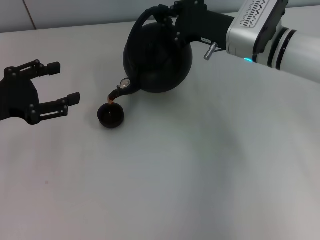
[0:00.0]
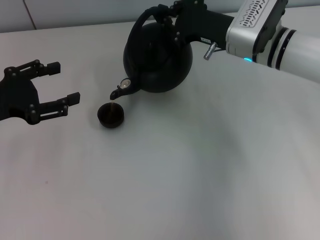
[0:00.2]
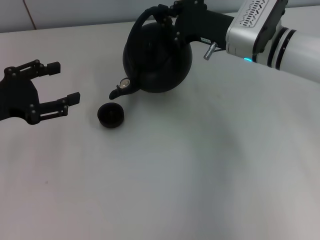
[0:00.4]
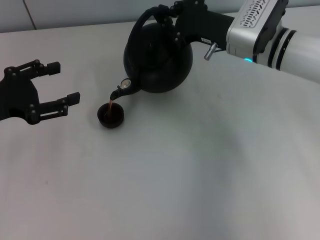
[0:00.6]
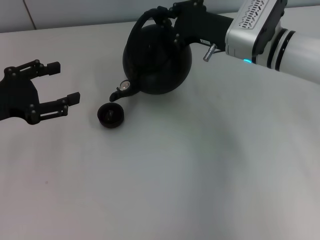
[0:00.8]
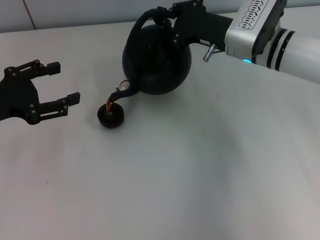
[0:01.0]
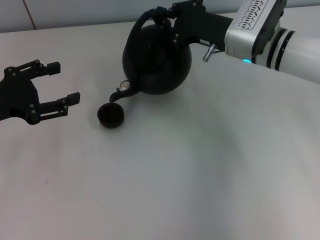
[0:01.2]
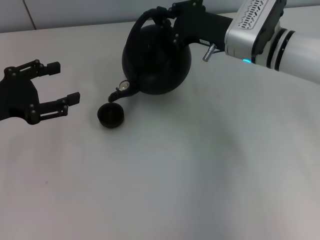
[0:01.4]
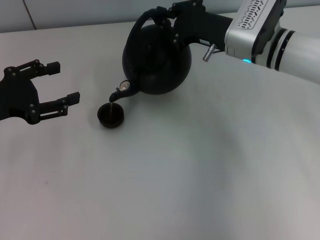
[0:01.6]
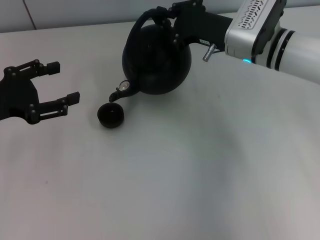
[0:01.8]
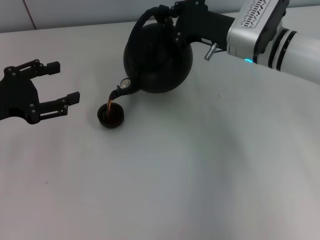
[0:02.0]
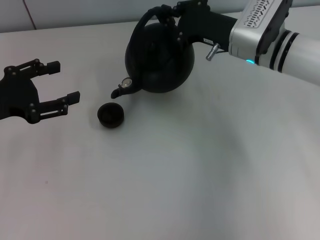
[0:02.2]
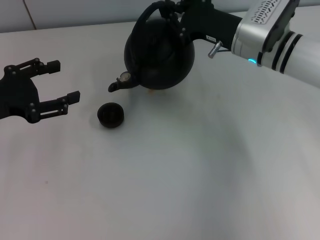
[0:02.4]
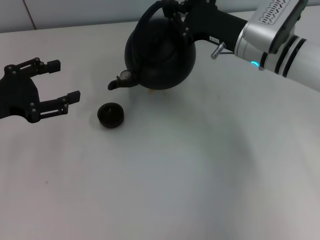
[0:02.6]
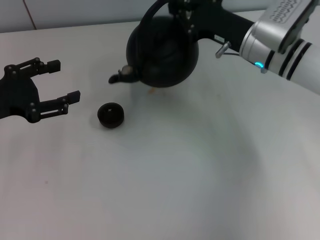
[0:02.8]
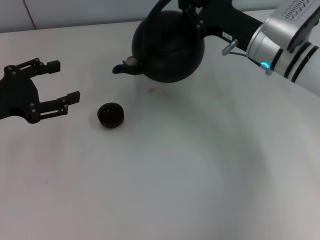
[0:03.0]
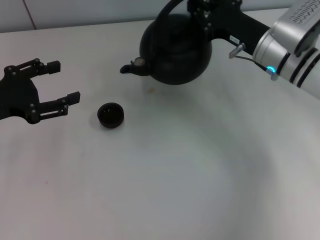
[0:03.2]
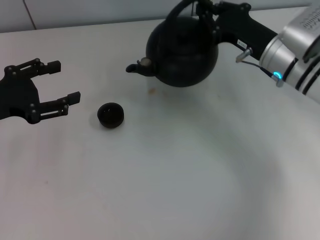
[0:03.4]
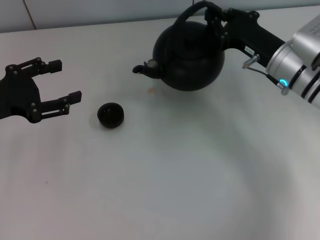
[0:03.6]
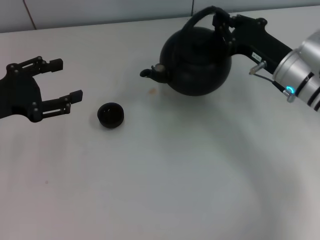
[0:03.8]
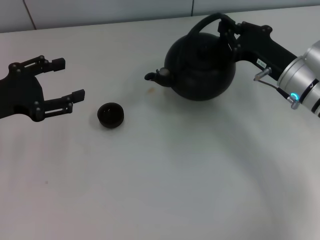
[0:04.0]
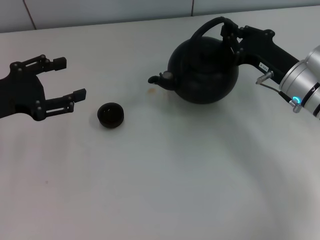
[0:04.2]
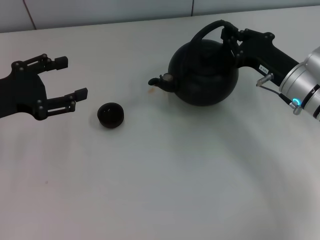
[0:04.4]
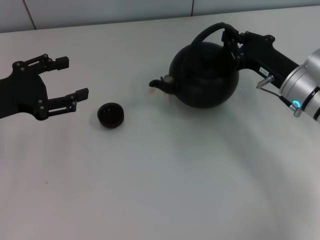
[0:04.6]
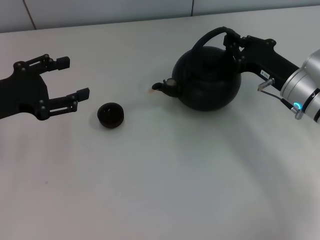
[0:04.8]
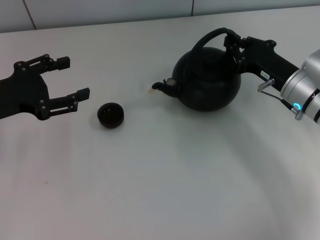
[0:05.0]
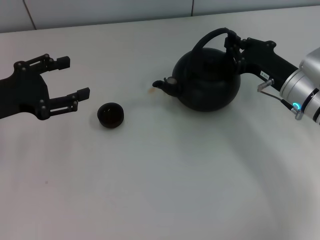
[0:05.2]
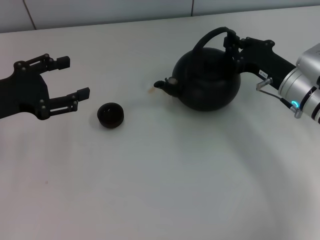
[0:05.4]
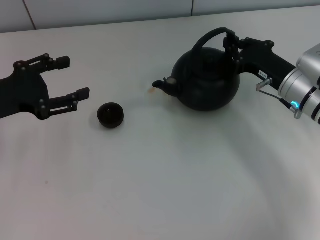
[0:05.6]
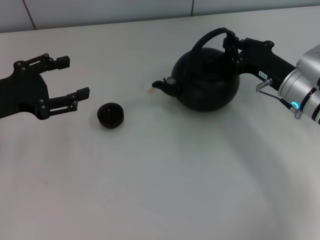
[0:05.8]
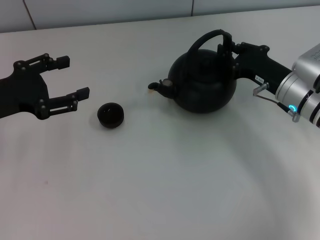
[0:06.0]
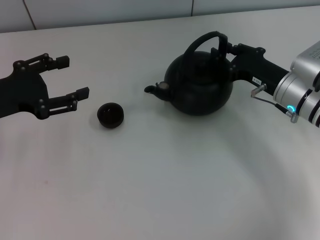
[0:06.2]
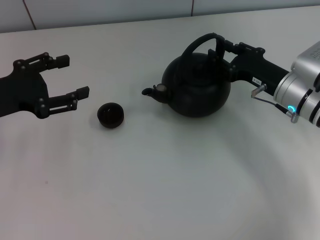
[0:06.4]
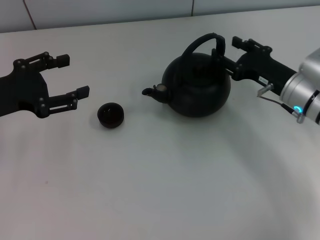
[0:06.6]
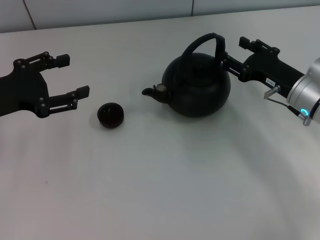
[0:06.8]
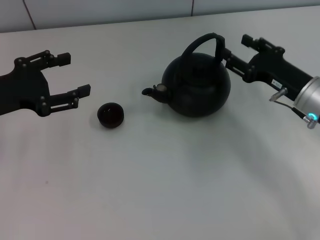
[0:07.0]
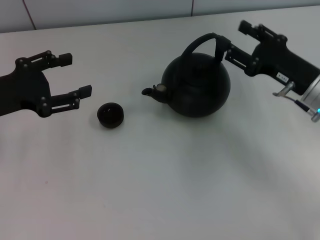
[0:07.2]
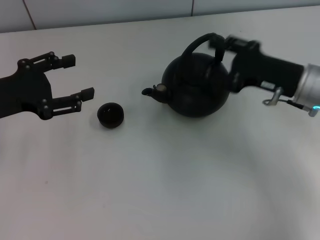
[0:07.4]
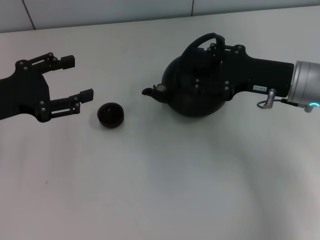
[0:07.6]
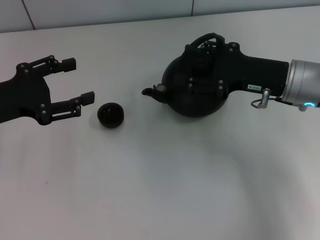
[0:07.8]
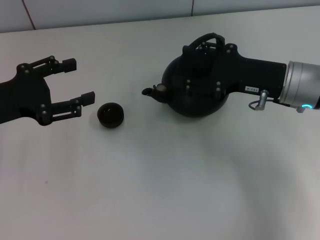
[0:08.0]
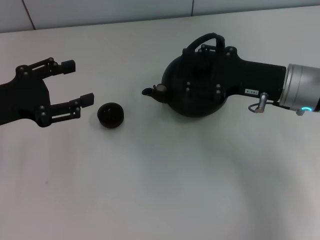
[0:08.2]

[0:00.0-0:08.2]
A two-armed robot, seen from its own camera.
Task of the whole recording: Grasp the handle of the teapot with one hand and pour tea into the teacup.
Step, 2.4 to 6.8 s: Put down the teapot with the right gripper.
0.0 to 1.6 s: Both grippers stay about where they are.
3.2 to 5.0 s: The right gripper shifts by some 10 cm.
5.0 to 6.6 s: The right gripper opens its fingers.
6.6 to 8.2 s: The right gripper moves upward, about 5 cm.

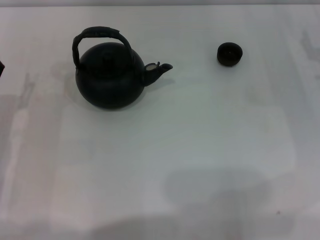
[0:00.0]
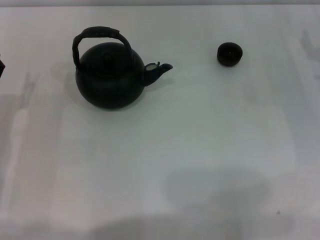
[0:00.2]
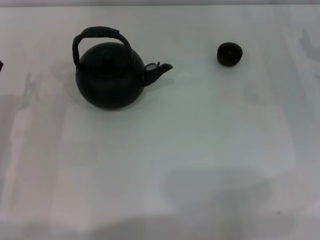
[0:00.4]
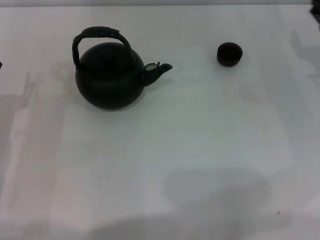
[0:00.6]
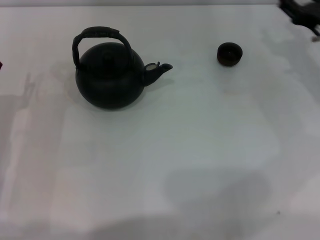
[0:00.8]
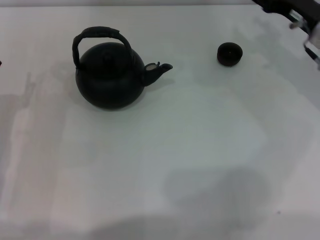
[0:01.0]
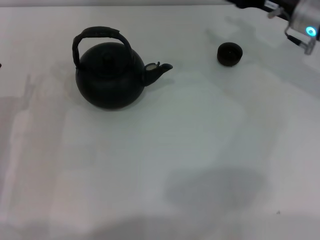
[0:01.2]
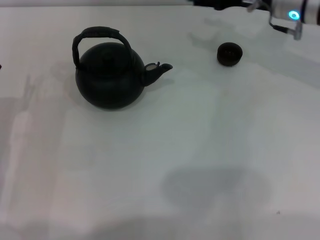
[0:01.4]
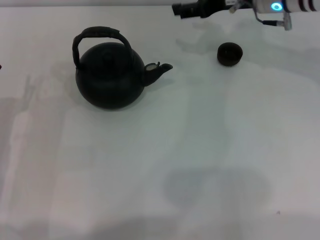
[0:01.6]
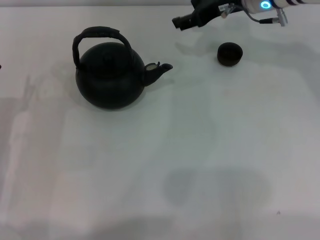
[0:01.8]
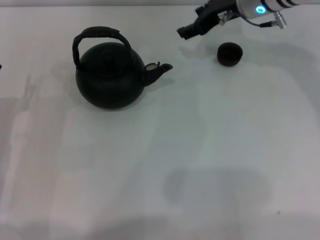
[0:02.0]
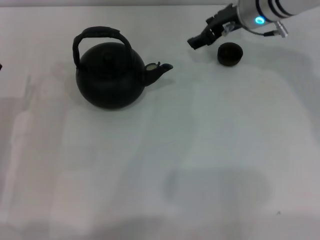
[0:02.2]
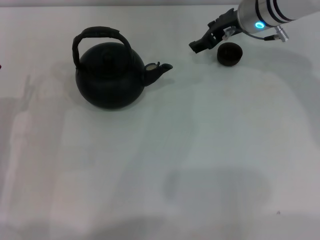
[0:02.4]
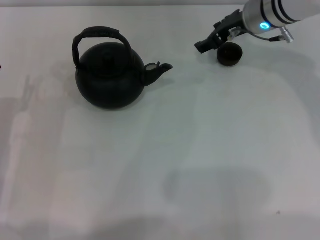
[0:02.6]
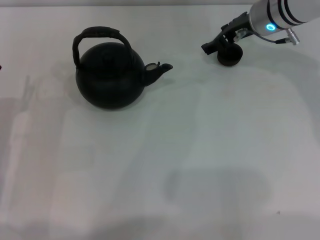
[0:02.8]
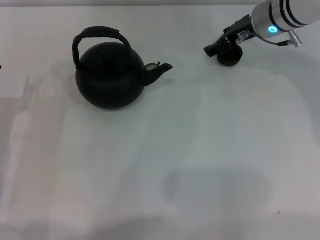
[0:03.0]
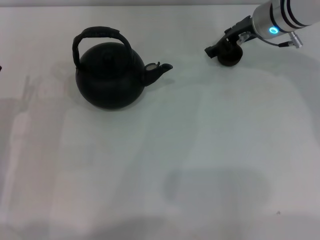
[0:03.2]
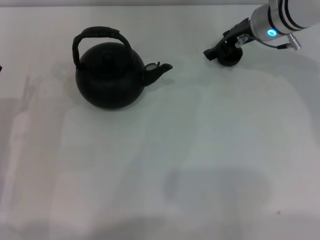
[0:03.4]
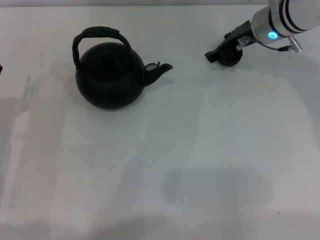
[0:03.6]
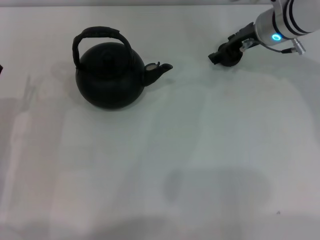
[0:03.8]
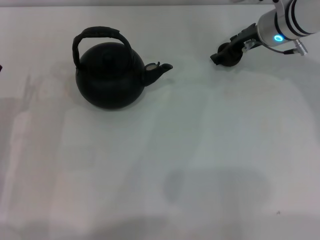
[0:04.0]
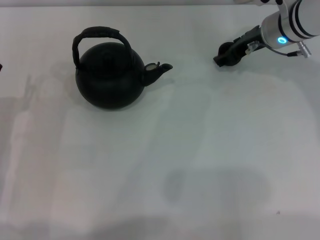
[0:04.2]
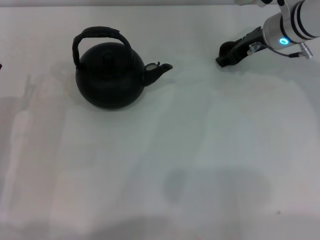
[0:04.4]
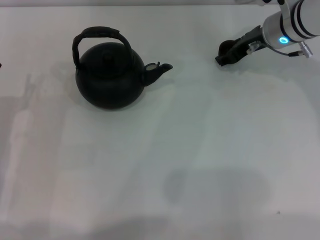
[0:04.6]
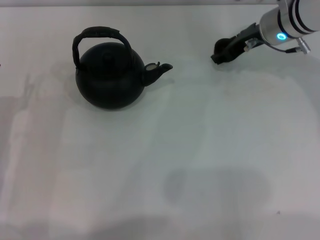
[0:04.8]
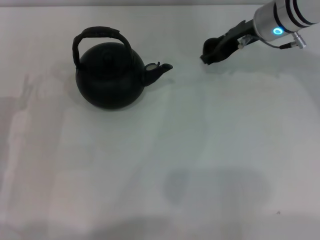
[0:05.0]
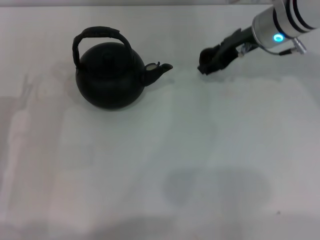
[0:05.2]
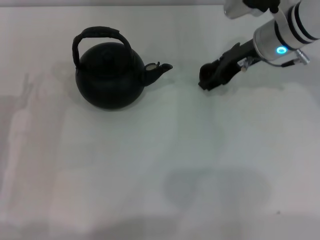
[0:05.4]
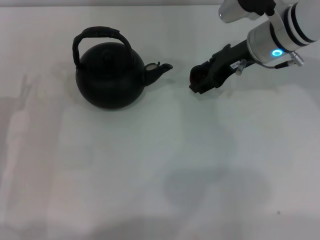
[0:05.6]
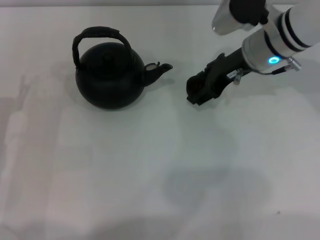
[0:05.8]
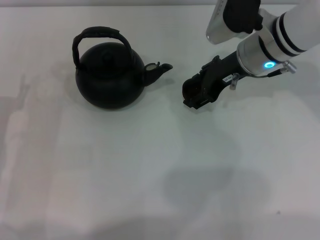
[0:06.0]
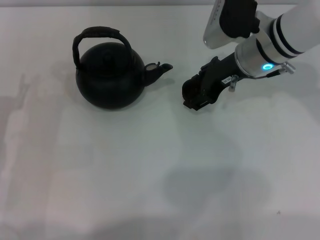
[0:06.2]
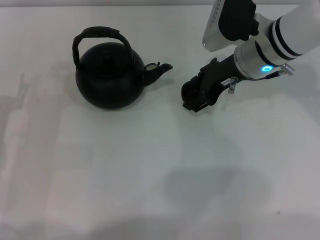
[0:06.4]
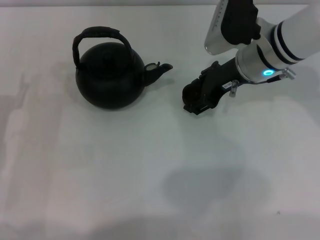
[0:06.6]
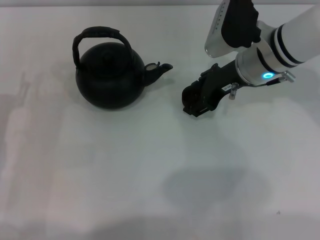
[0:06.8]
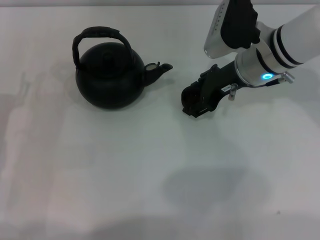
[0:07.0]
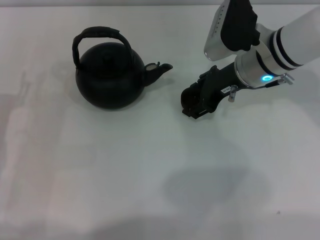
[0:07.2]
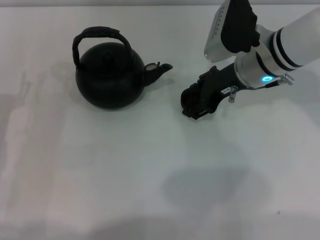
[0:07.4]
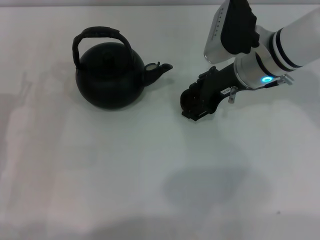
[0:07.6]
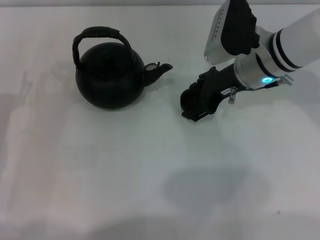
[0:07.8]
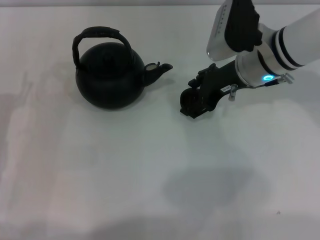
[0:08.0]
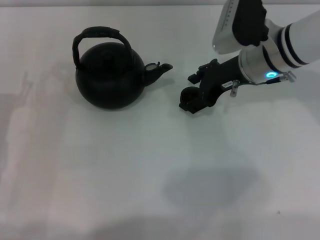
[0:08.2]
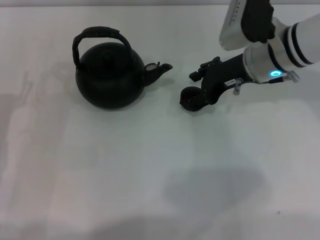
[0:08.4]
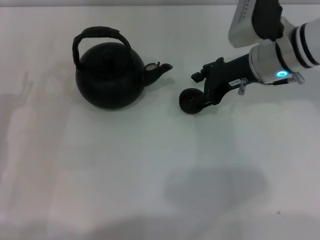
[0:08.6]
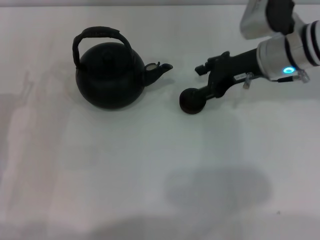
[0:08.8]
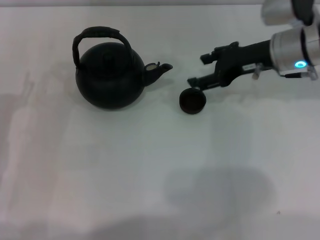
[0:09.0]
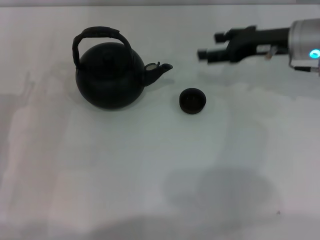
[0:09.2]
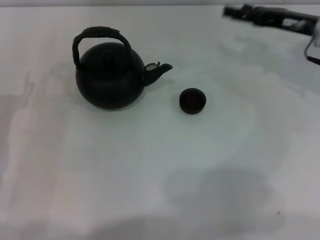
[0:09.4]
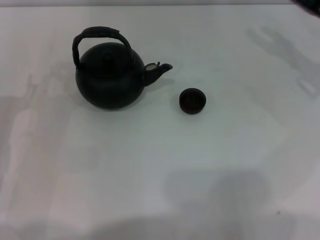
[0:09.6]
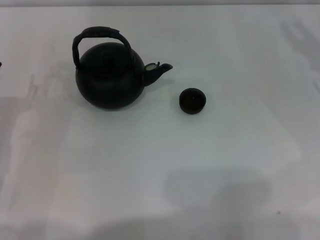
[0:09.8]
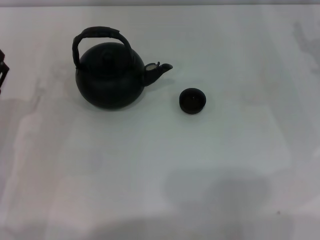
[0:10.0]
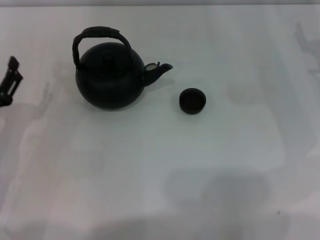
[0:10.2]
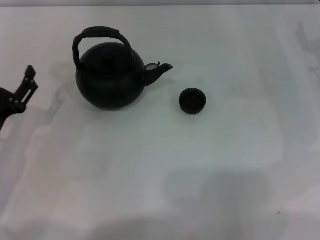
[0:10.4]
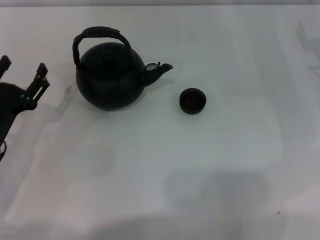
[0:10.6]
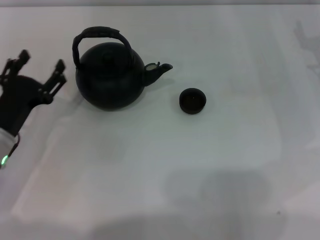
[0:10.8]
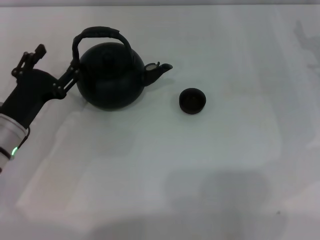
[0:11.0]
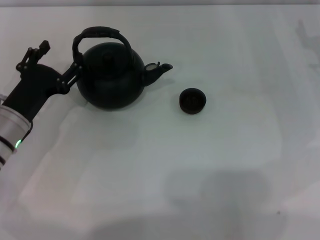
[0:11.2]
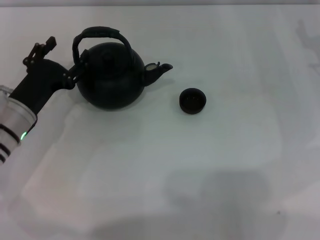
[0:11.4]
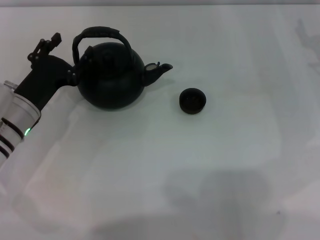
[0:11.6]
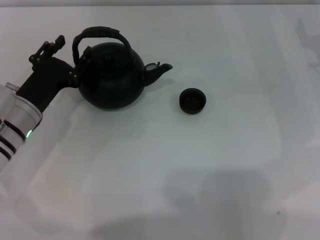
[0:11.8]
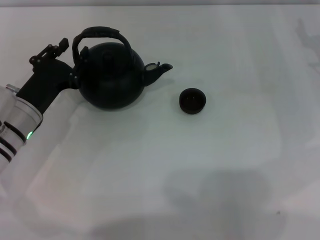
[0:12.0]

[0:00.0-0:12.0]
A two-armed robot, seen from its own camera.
Task of the whole recording: Grasp the handle of the teapot with one hand and pour tea into the teacup.
Step, 0.0 to 4.8 s: Pick up the teacup with the right gripper.
Step, 5.0 to 9.0 s: Place the teacup in the center of view with the right gripper.
0.0 to 1.6 s: The right gripper is displaced to the left, forward and upward by some 20 cm.
3.0 to 4.4 s: The grippers move only a little.
4.4 to 6.0 s: The right gripper ends up roughly 5 cm from where it was.
6.0 to 7.6 s: The grippers make only small movements.
7.6 to 9.0 s: The right gripper shifts some 5 cm to the right.
9.0 to 10.4 s: The right gripper travels to the right and downward by roughly 15 cm.
10.4 to 12.0 s: The left gripper is displaced forward and to the right by roughly 10 cm, and closes up.

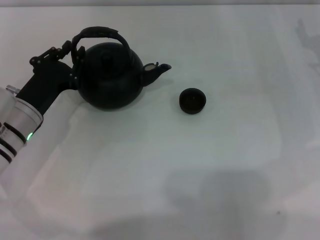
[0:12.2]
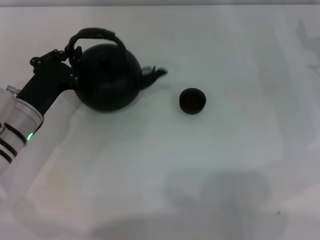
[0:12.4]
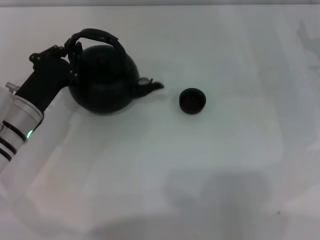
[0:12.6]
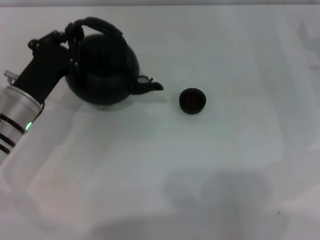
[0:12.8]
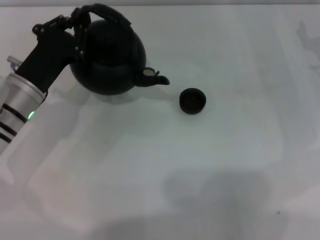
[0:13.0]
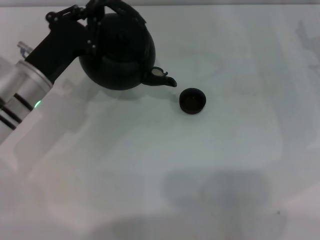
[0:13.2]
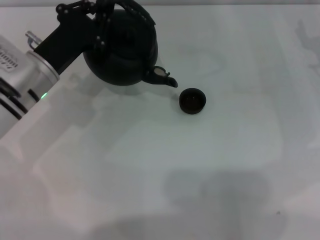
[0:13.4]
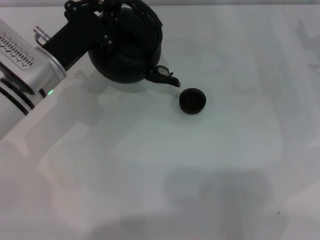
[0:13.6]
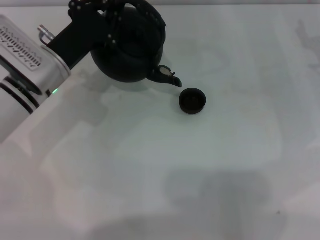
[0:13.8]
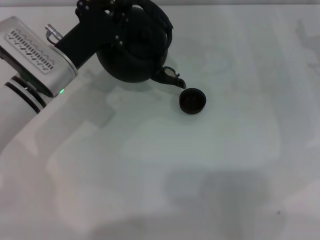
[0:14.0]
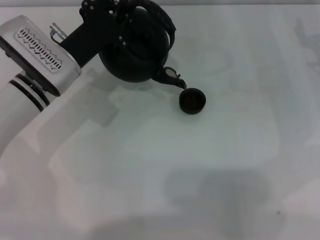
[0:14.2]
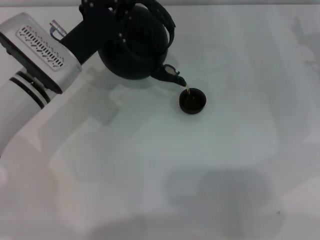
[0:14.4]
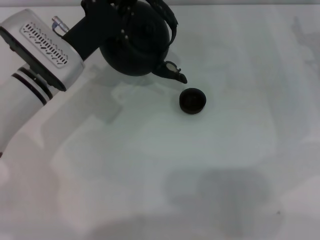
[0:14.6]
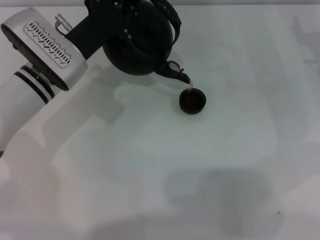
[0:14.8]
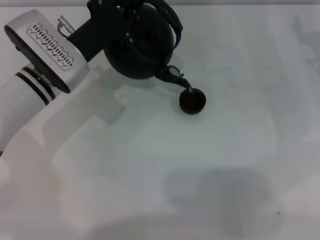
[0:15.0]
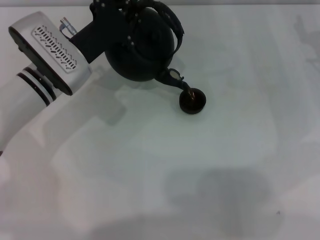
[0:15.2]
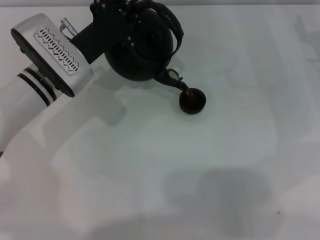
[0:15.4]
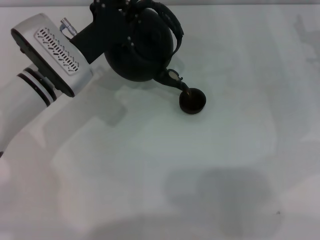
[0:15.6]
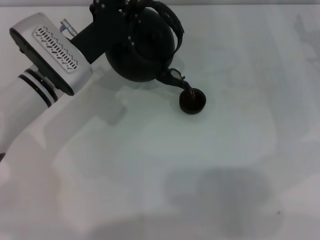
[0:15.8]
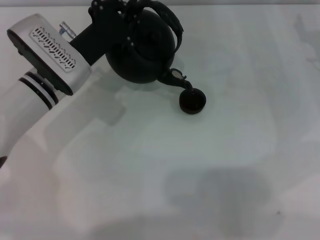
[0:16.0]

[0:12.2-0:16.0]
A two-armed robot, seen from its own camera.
Task of the whole recording: Grasp the handle of the teapot with one hand and pour tea into the teacup.
12.2 to 13.4 s: The left gripper shifts by about 5 cm, and closes.
13.4 to 14.8 s: The grippers move only a little.
14.8 to 16.0 s: The two grippers keep their place.
